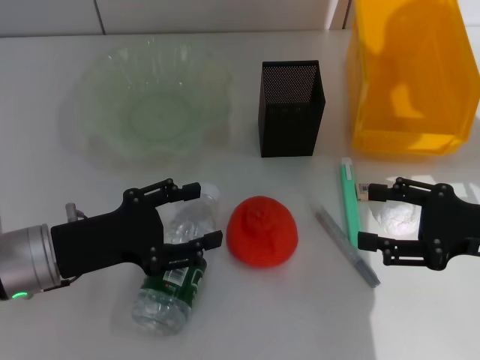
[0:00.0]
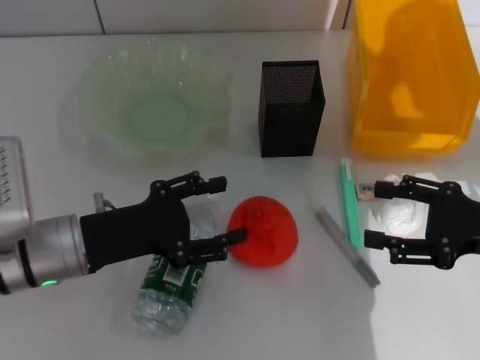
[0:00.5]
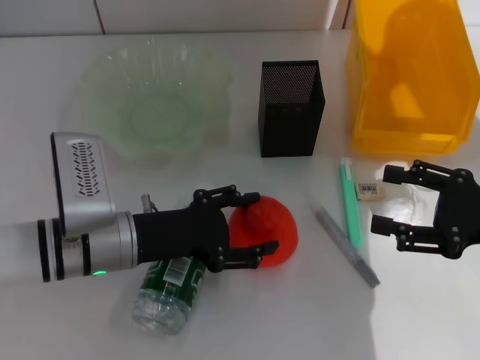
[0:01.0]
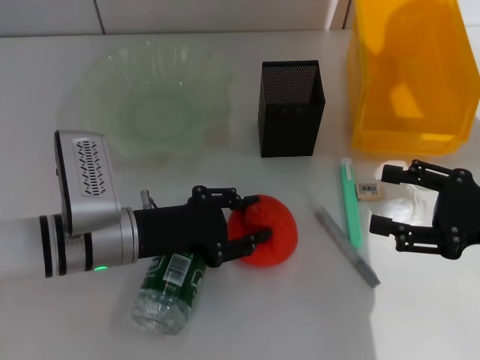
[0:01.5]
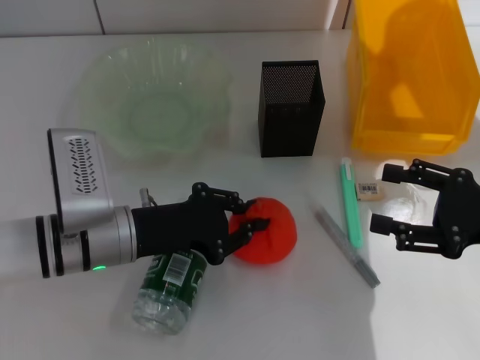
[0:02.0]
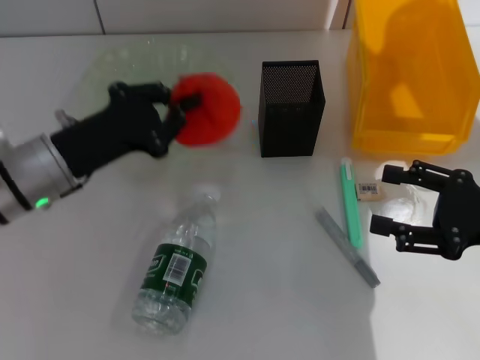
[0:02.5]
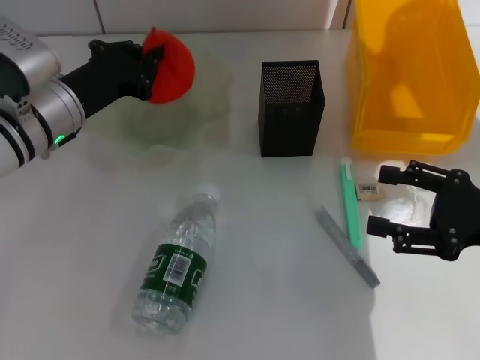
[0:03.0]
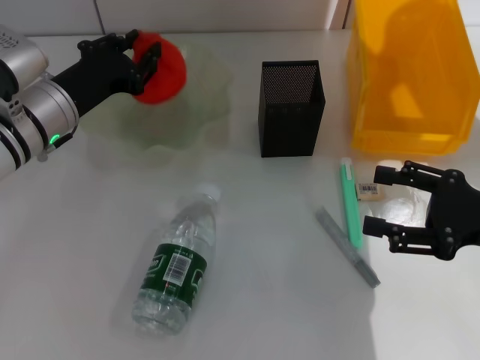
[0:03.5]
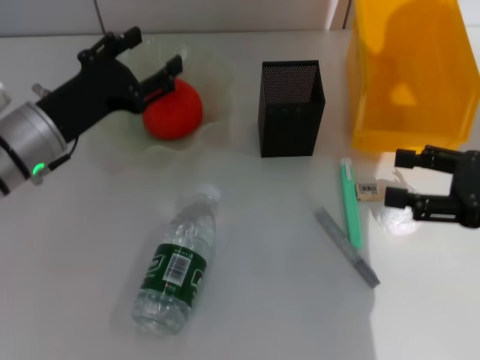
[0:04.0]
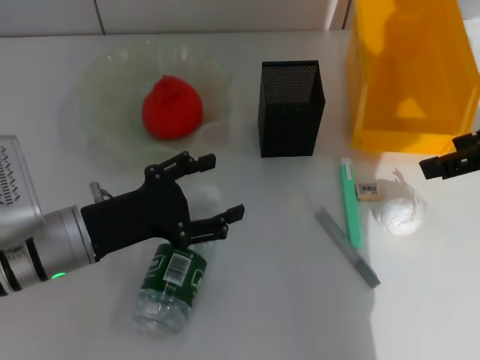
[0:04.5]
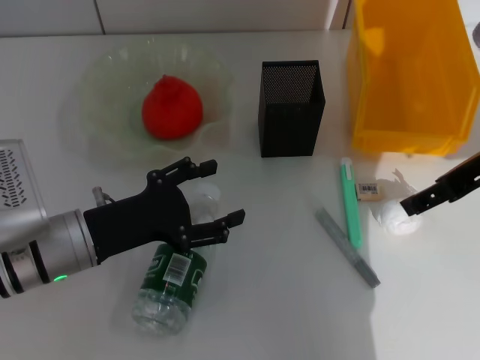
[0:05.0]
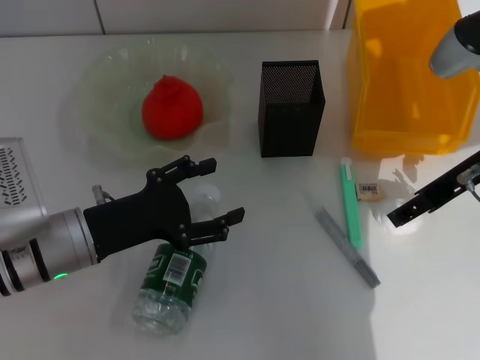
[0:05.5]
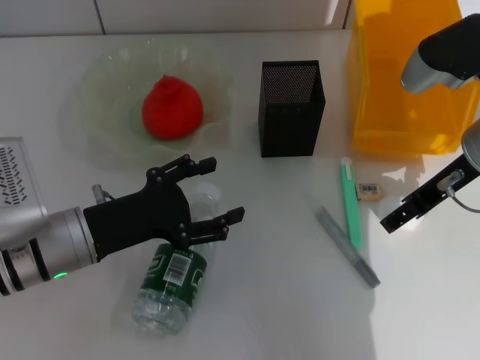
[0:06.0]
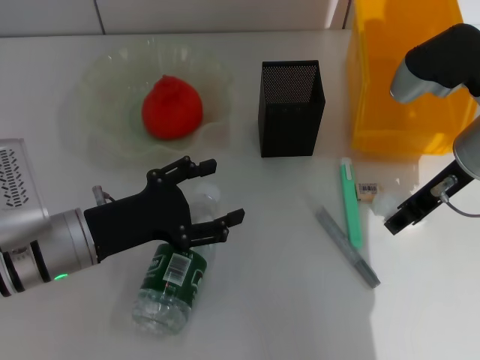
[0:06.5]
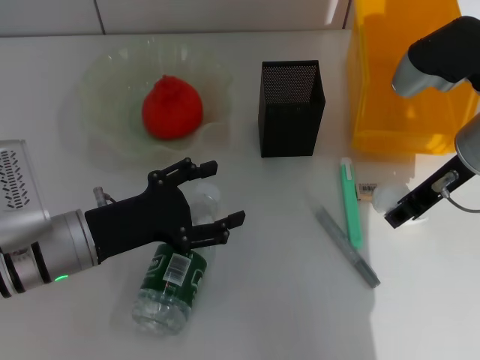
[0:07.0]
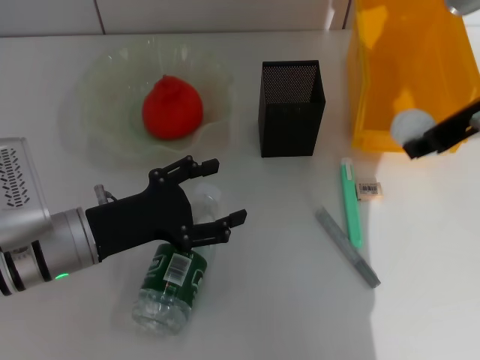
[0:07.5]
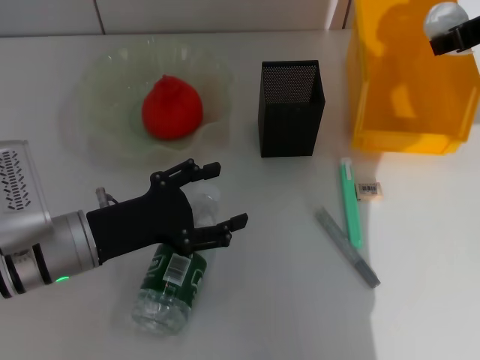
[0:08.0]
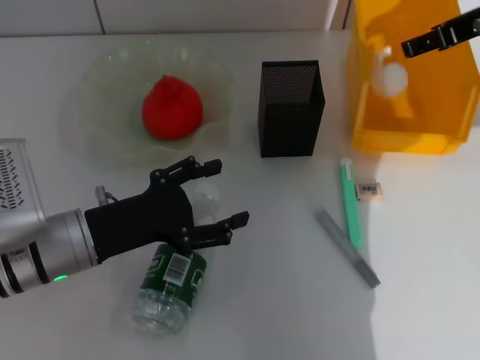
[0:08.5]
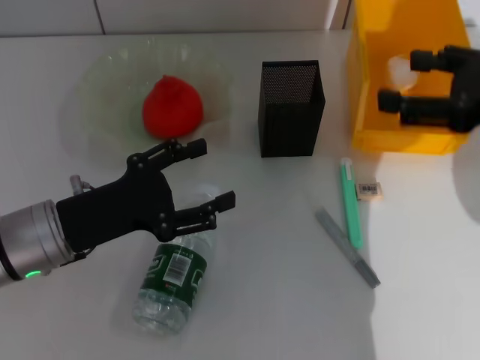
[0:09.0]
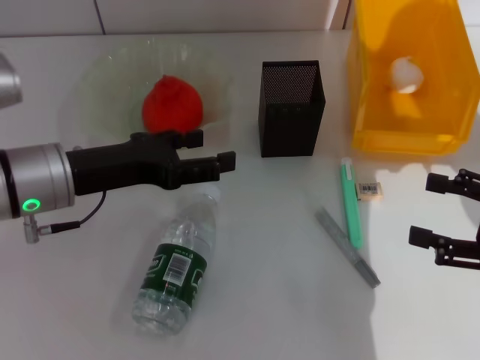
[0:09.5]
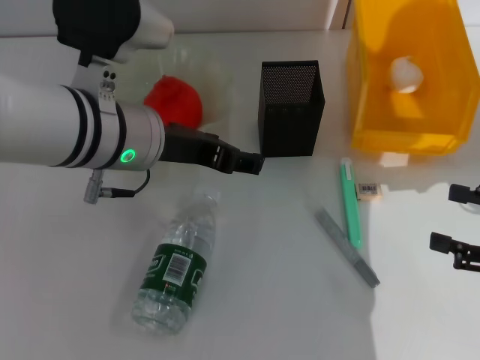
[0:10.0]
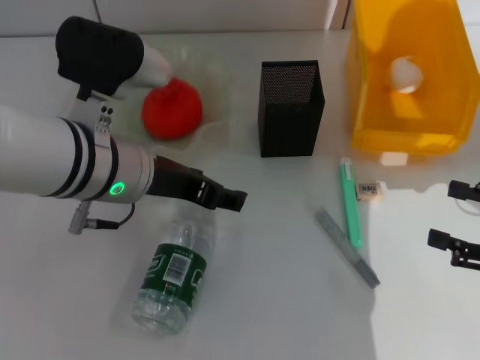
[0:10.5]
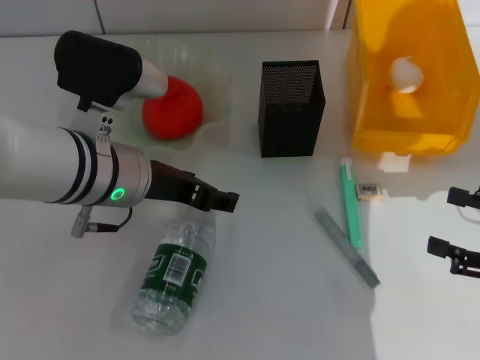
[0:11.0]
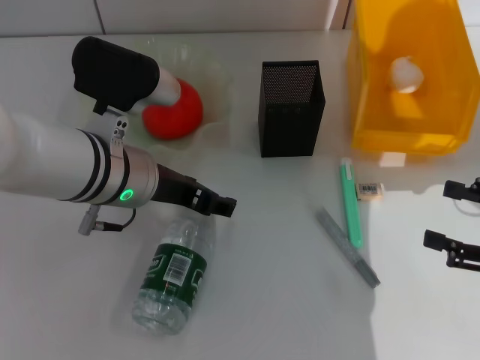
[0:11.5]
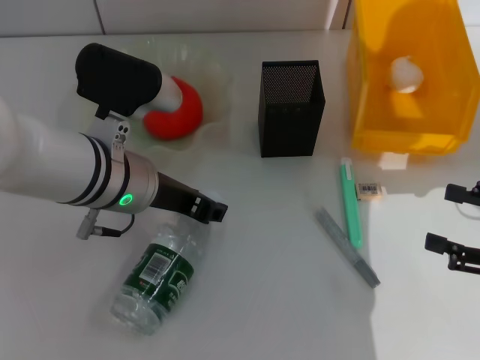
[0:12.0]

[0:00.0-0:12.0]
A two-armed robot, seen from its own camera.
Step, 0:00.0 to 0:01.5: Grab the orange with the left hand.
Step, 0:02.0 to 0:03.5: Place the orange into the fruit bowl with the left hand.
Step, 0:04.0 to 0:06.0: Grab the paper ball with the right hand.
Step, 0:06.5 to 0:08.5: Place the paper ball into the trash can with the right hand.
0:00.0 to 0:02.0: The left gripper is displaced to the right by some 5 cm, and closes.
0:02.0 to 0:04.0: The left gripper travels forward and to the left by approximately 10 cm, and opens.
0:04.0 to 0:06.0: The left gripper heads backward, covering about 10 cm. The right gripper shifts about 15 cm to the left and forward, and moves some 10 cm upward and comes back.
0:06.0 to 0:08.0: The right gripper moves upward, approximately 10 cm, and closes its fingers.
0:08.0 to 0:10.0: The left gripper heads upward and to the right, covering some 15 cm. The right gripper shifts some 25 cm backward, downward and to the right, and opens.
0:10.0 to 0:12.0: The grippers stay close to where they were, moving slightly.

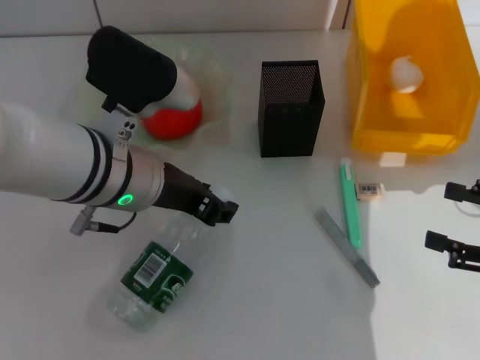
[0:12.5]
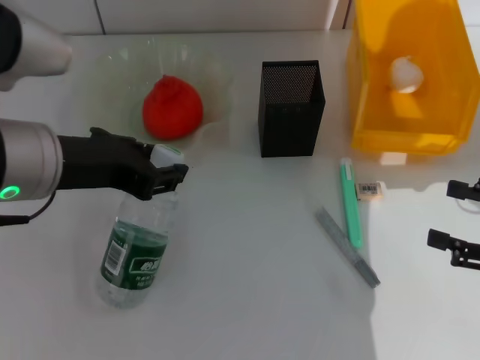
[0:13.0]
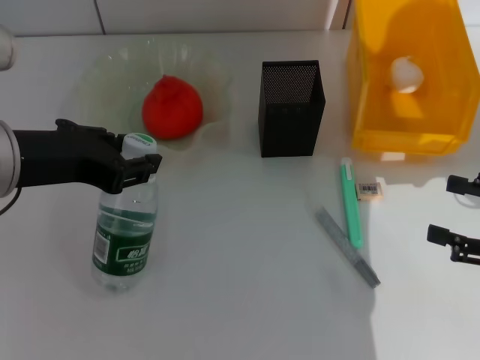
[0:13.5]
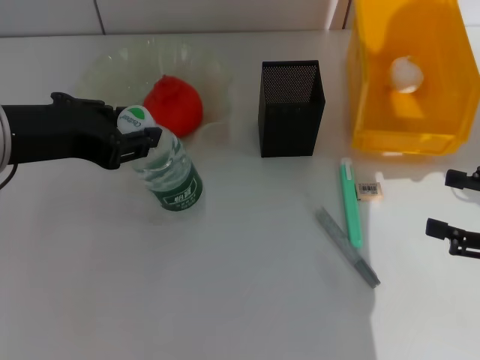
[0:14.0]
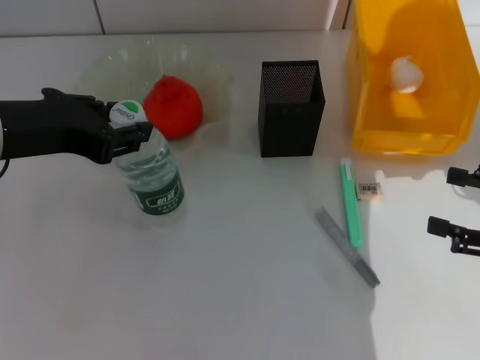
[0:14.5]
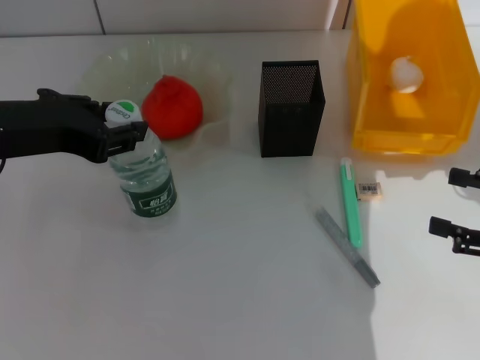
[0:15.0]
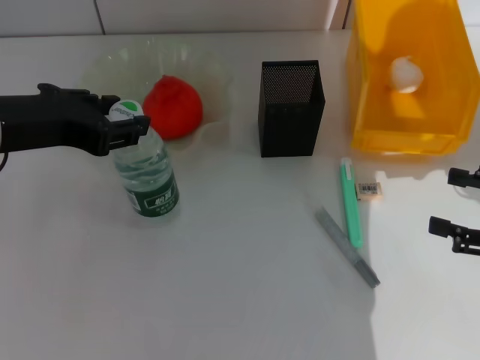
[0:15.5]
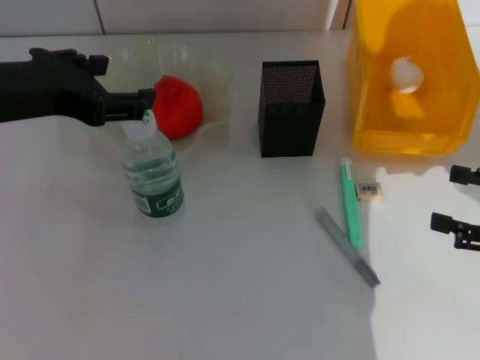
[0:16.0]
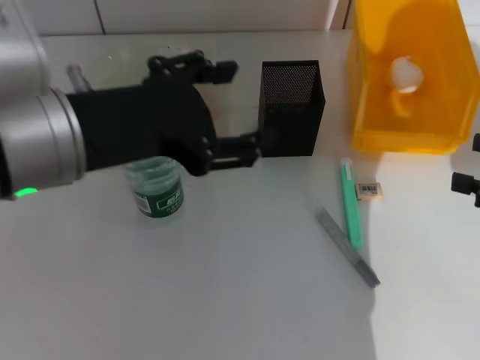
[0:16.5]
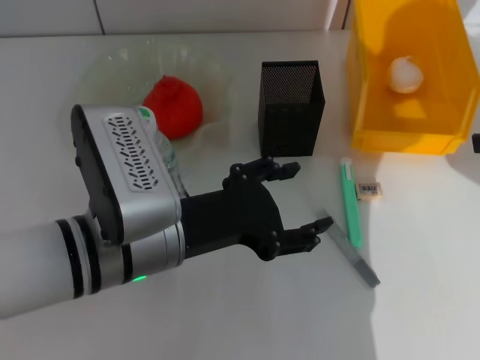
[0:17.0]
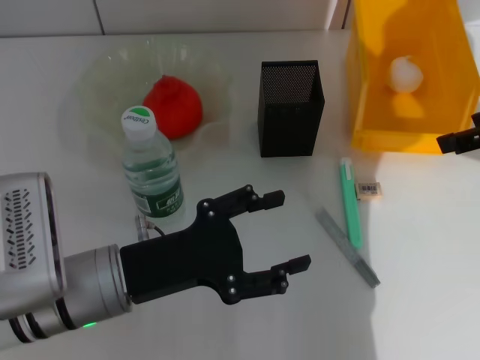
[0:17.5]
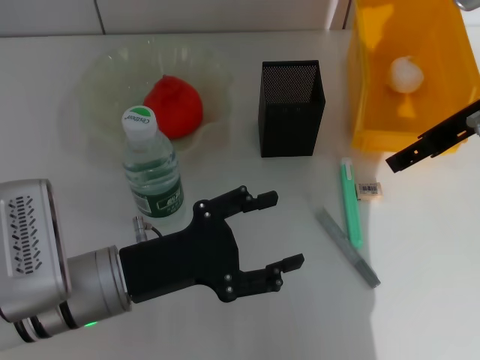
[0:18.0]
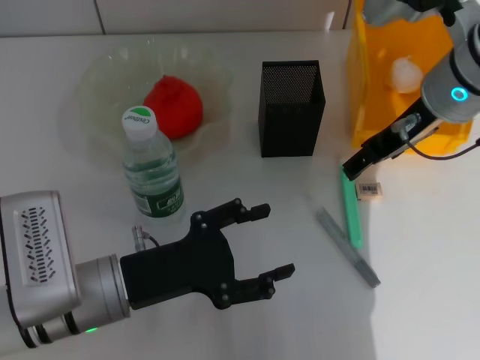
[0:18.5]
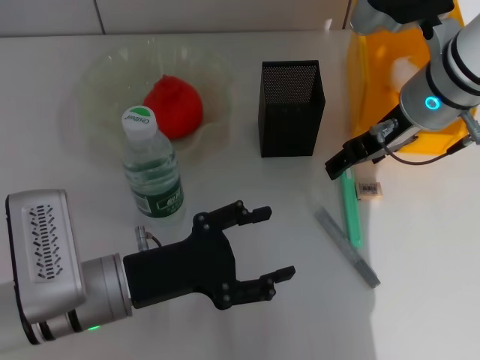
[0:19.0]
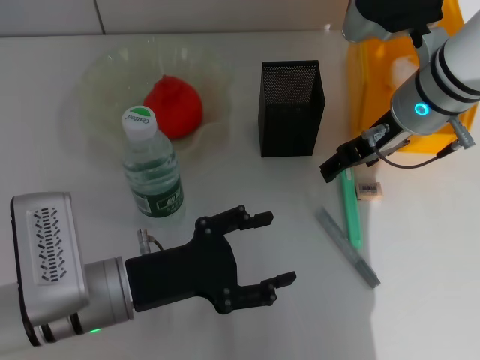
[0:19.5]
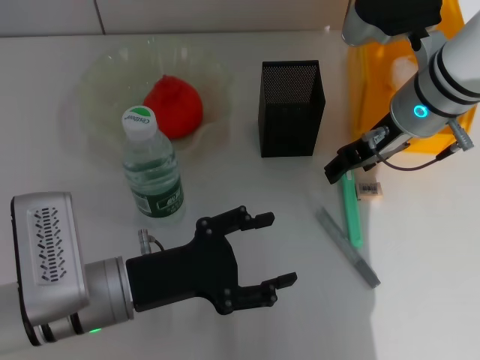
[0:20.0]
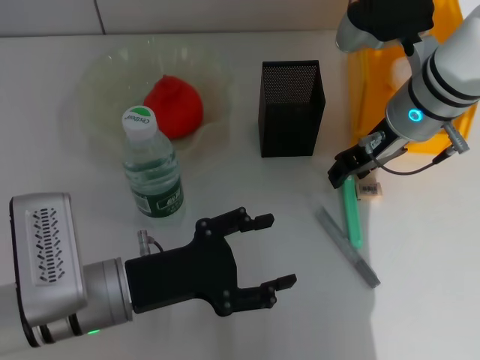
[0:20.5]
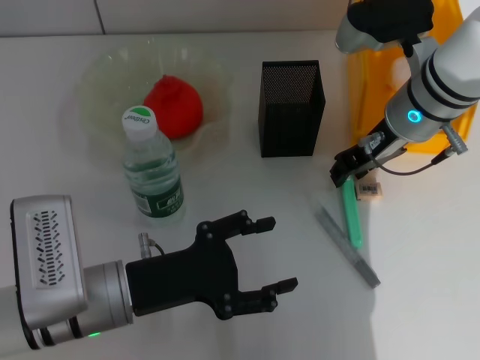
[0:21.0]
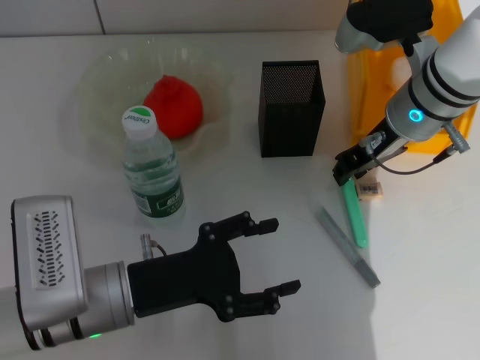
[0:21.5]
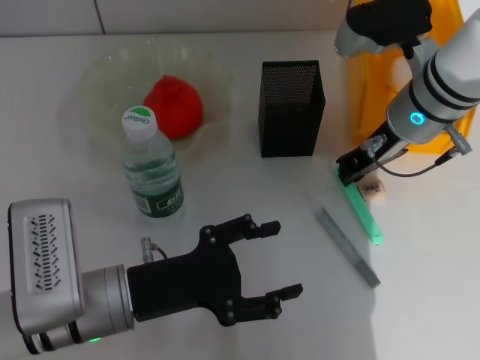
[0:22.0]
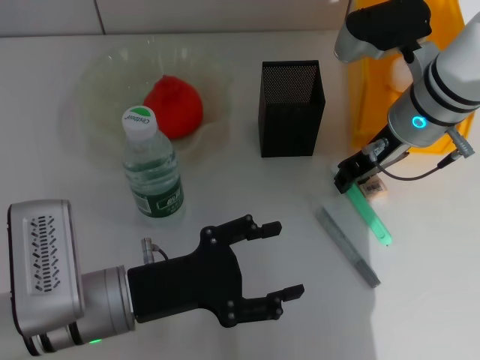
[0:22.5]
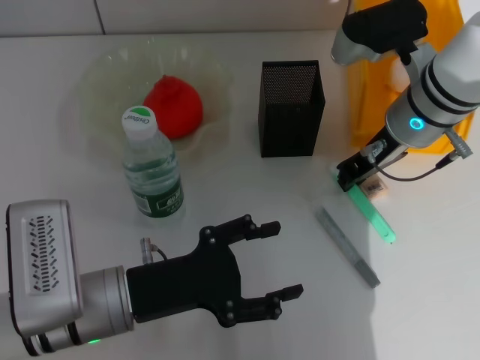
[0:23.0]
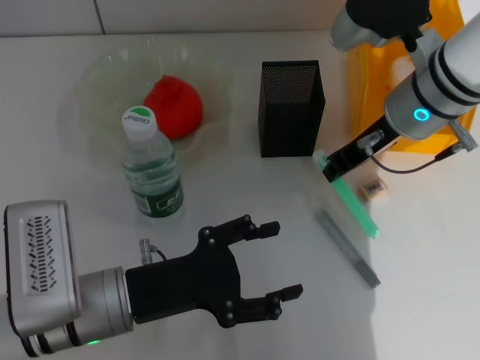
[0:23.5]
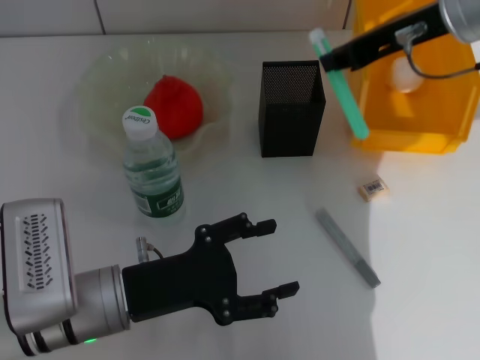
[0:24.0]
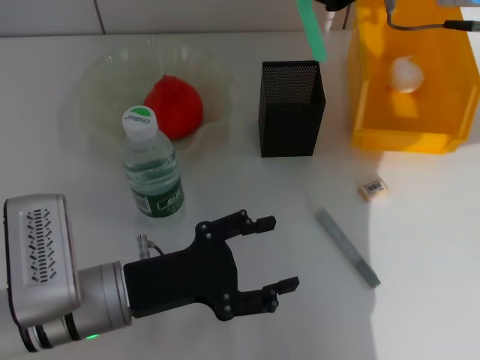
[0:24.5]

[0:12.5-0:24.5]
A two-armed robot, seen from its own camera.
Step, 0:12.5 to 0:15.5: Place the water bottle on the table with the left hand.
Step, 0:16.0 to 0:23.0: Grab the blue utility knife with the right hand.
0:12.5 to 0:14.5: The left gripper travels to the left and upward by approximately 10 cm.
0:14.5 to 0:16.5: The left gripper shifts roughly 5 cm to the right, and opens.
0:16.5 to 0:18.5: The left gripper goes approximately 20 cm downward. The right gripper travels to the left and forward by some 25 cm.
0:18.5 to 0:20.5: The right gripper shifts by some 5 cm, and closes up.
0:20.5 to 0:22.5: Both grippers stay about where they are.
0:22.5 to 0:24.5: The right gripper is displaced upward by roughly 10 cm.

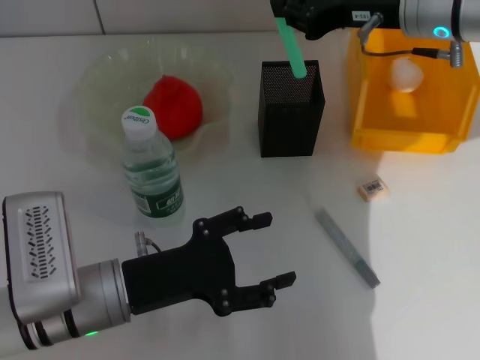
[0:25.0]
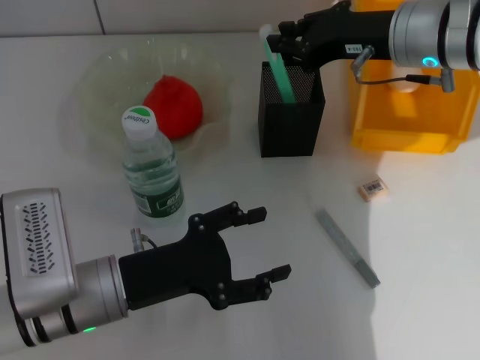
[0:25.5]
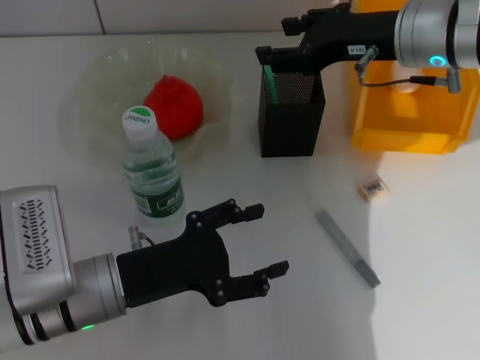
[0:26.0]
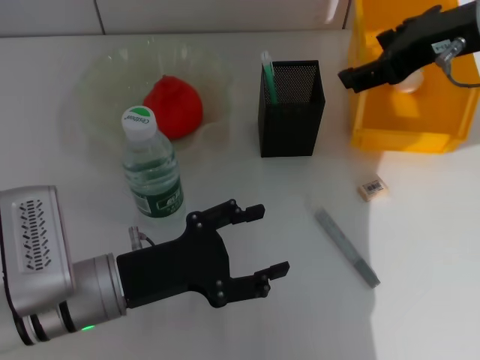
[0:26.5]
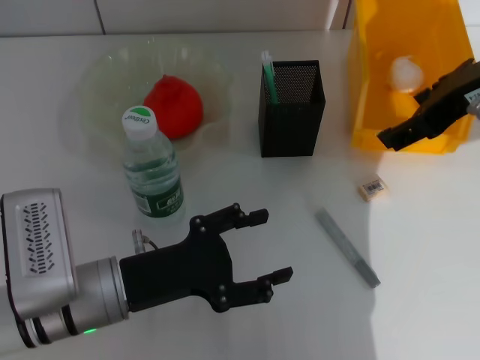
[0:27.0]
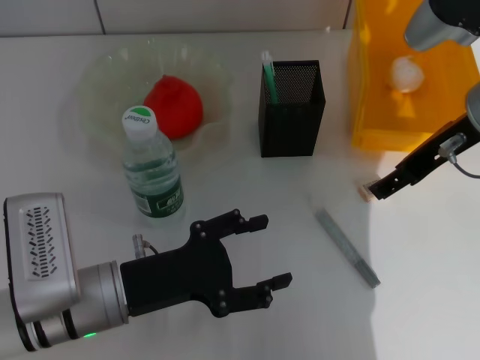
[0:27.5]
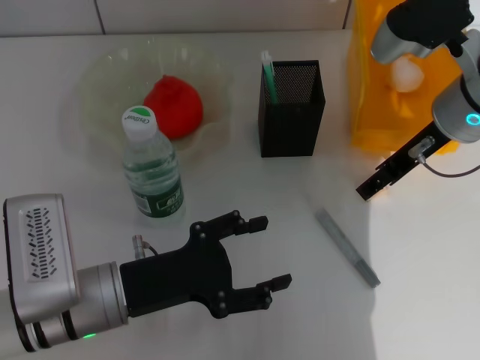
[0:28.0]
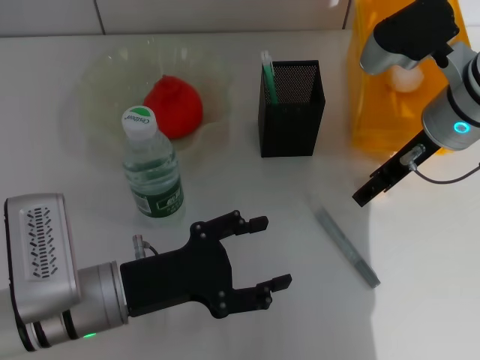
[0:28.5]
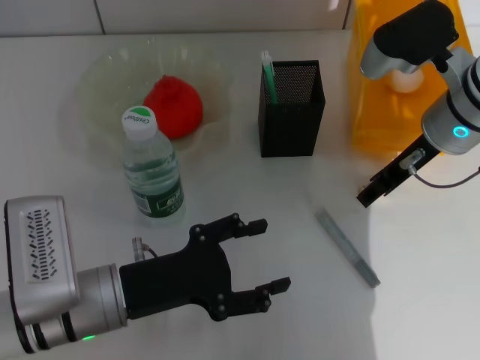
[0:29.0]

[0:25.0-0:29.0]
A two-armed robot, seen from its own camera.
0:25.0 to 0:27.0: The right gripper shifts approximately 5 cm backward, and opens up.
0:27.0 to 0:29.0: The right gripper is displaced downward by roughly 10 cm.
